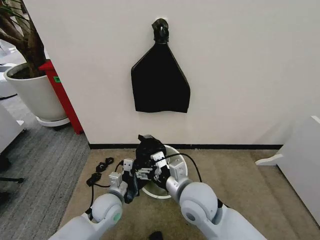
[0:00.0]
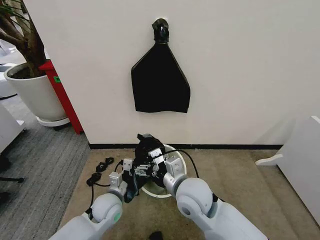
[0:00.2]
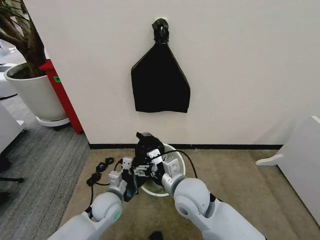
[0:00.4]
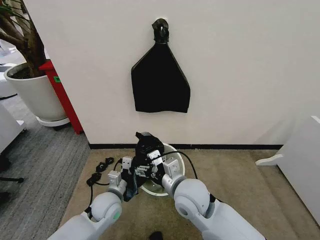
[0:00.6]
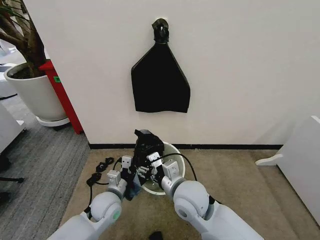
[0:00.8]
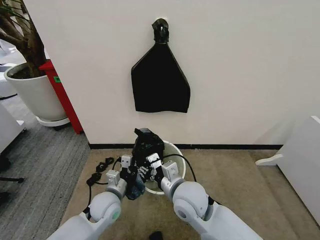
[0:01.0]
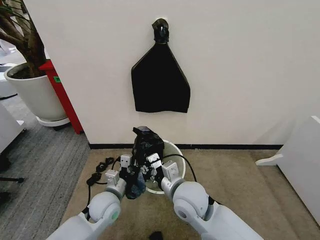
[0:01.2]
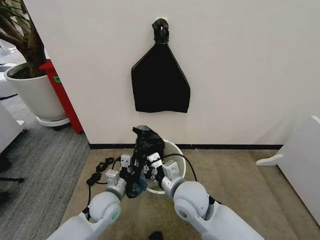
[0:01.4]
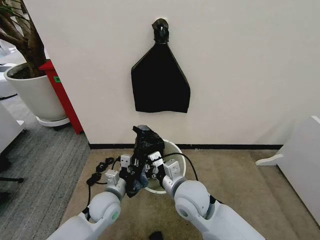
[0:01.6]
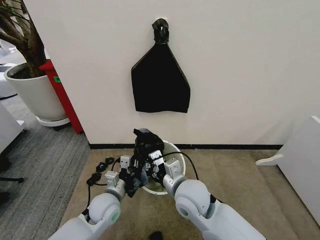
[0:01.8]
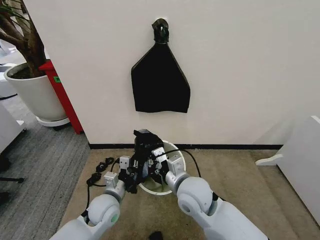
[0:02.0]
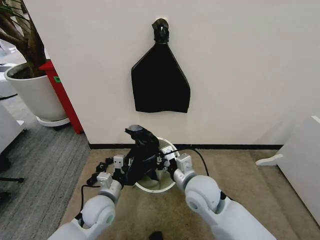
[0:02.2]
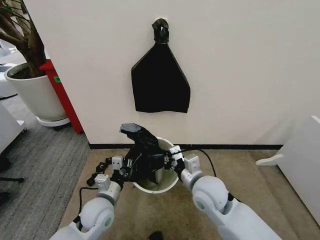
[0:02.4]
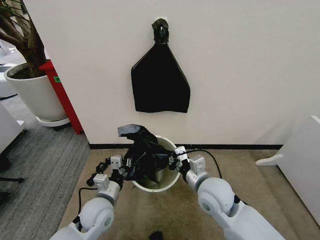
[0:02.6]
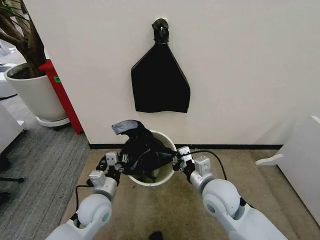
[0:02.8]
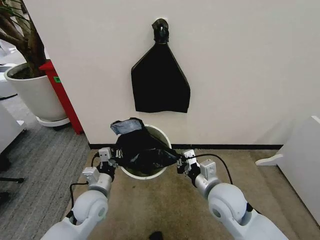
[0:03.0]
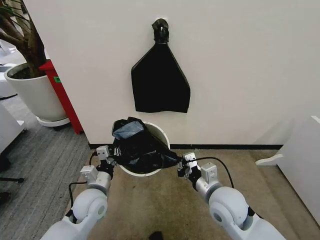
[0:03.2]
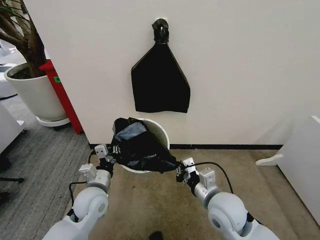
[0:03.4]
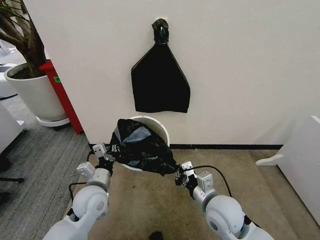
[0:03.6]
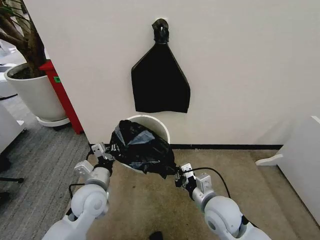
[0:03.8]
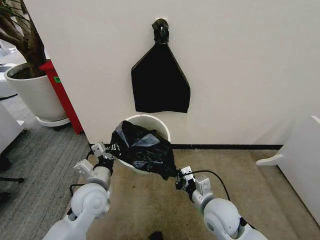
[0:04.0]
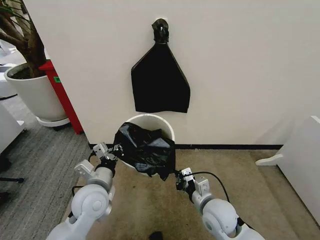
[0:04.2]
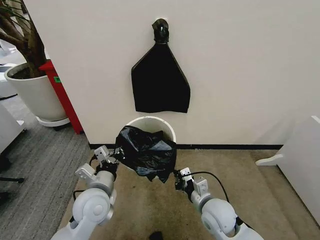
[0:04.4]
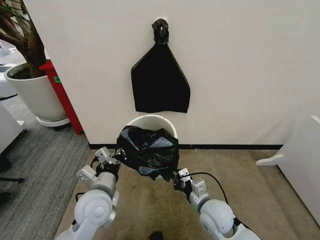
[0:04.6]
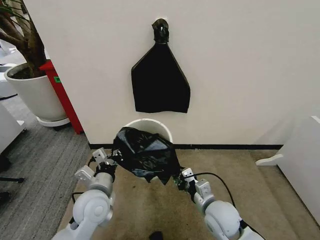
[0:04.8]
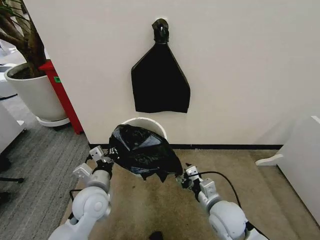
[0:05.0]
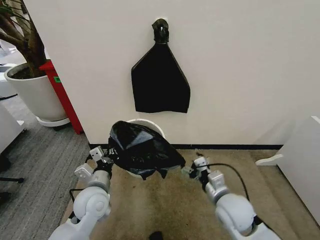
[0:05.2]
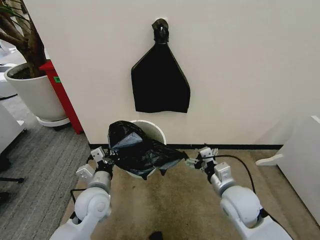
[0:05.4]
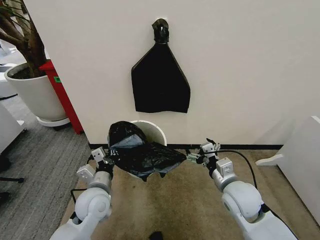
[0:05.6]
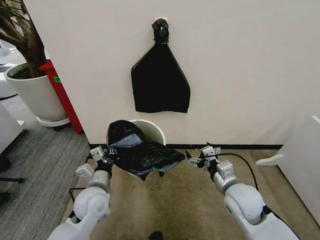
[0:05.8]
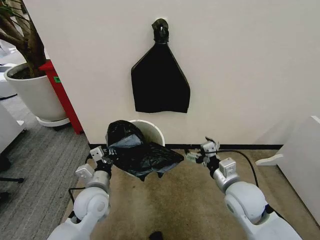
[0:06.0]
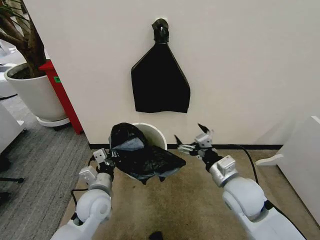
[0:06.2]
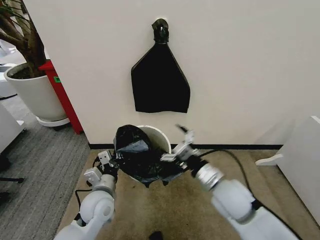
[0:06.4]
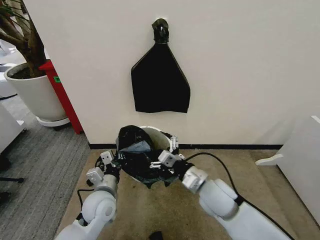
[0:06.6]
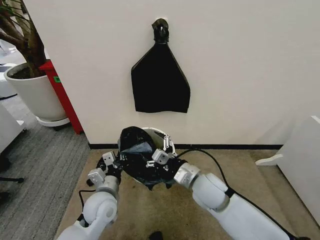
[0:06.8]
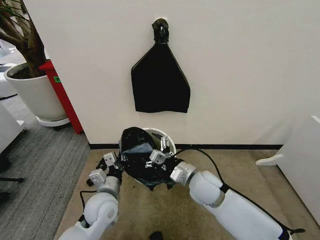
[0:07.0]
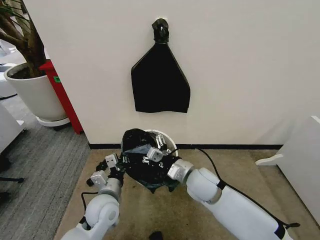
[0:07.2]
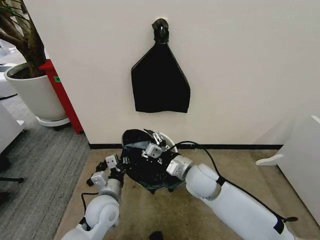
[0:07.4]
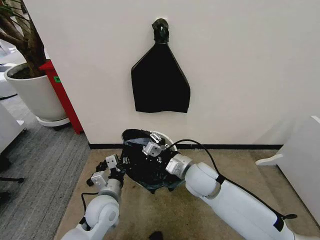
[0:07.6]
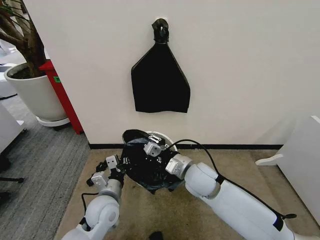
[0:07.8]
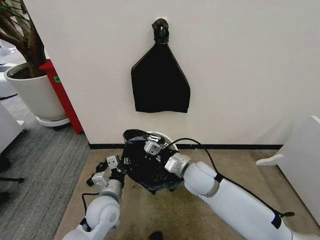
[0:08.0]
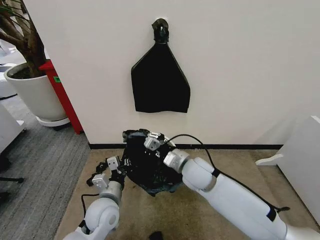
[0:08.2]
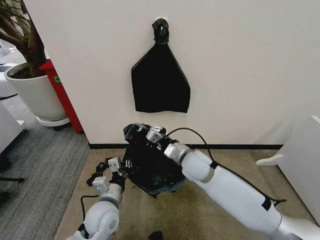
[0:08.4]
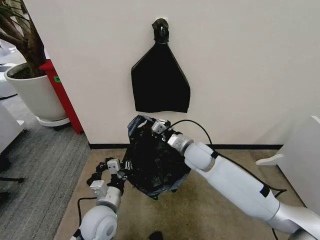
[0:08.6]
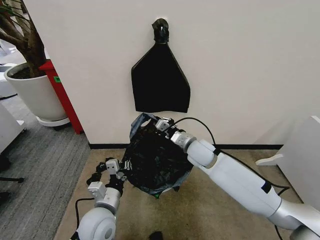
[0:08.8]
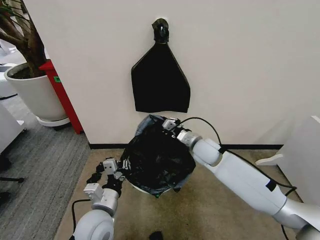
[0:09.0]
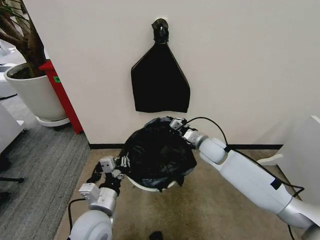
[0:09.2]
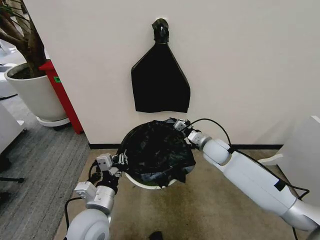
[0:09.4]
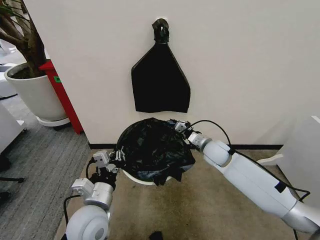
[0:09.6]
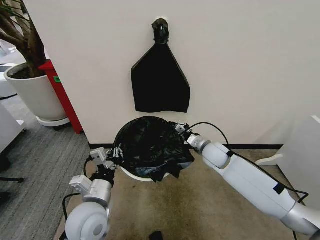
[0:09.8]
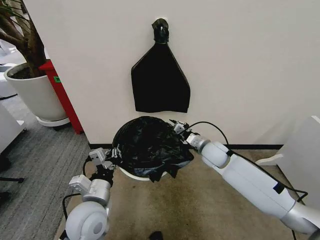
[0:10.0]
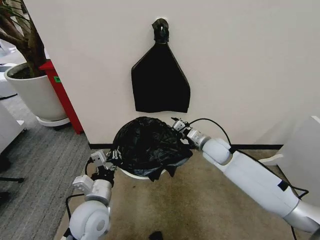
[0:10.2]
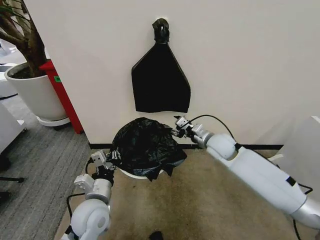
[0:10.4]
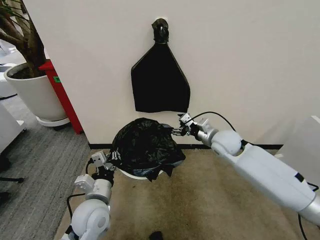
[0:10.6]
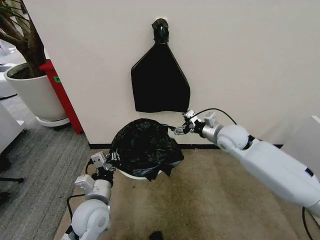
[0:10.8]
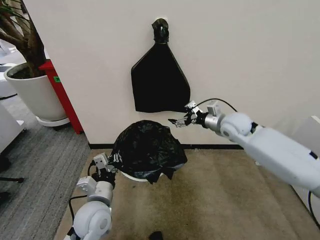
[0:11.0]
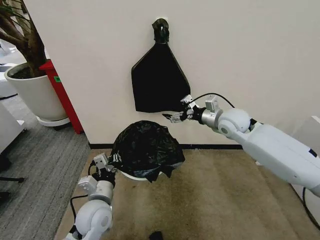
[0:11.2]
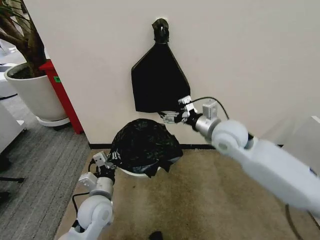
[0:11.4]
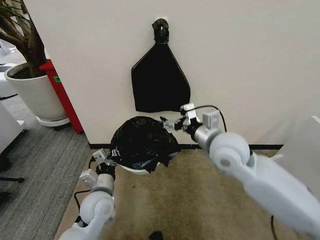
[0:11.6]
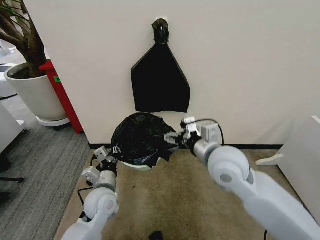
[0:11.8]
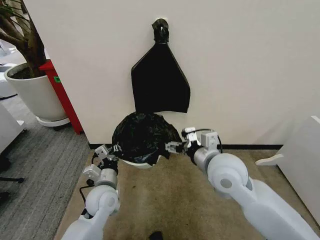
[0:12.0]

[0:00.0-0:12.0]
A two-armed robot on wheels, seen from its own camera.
Task of the whole recording: Place the garbage bag over the trash bin.
0:00.0 to 0:01.6: The right gripper closes its fingers.
0:01.6 to 0:03.0: The right gripper goes roughly 10 cm to the right.
0:03.0 to 0:04.4: The right gripper is displaced downward by roughly 10 cm, while the left gripper travels upward by approximately 5 cm.
0:04.4 to 0:06.0: The right gripper shifts some 10 cm upward and to the right, and opens up.
0:06.0 to 0:07.6: The right gripper shifts approximately 15 cm to the left and forward, and closes up.
0:07.6 to 0:09.0: The left gripper moves backward, about 5 cm. The right gripper goes approximately 10 cm forward, and closes.
0:09.0 to 0:10.4: The right gripper opens its fingers.
0:10.4 to 0:12.0: The right gripper travels backward and upward by approximately 15 cm, and opens up. The left gripper travels forward by some 5 cm.

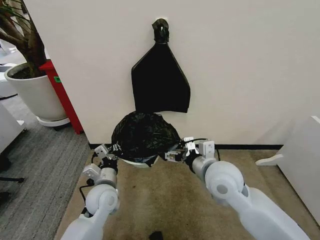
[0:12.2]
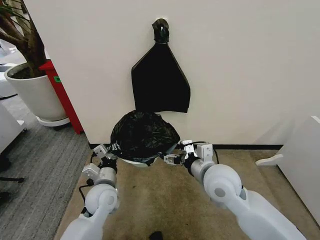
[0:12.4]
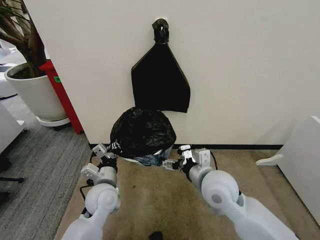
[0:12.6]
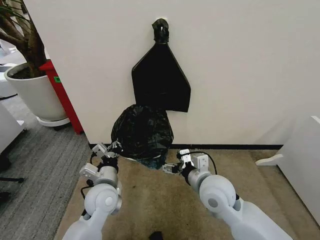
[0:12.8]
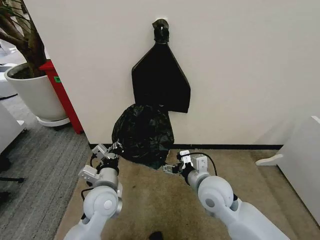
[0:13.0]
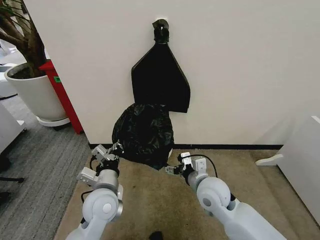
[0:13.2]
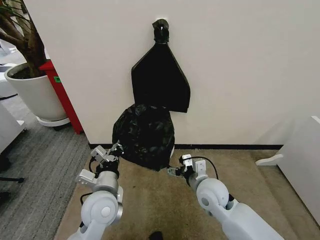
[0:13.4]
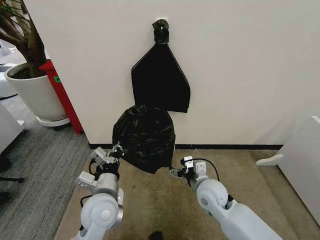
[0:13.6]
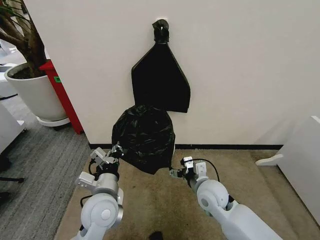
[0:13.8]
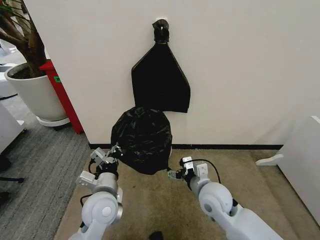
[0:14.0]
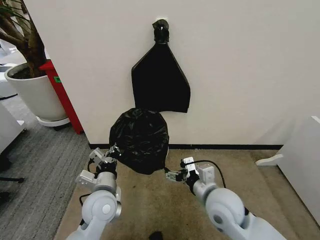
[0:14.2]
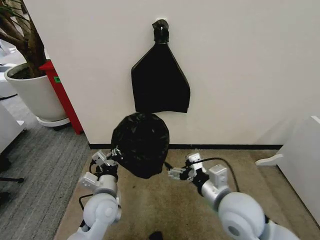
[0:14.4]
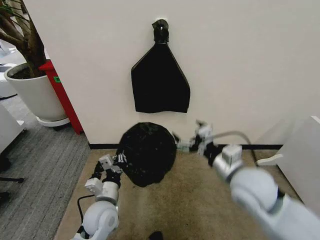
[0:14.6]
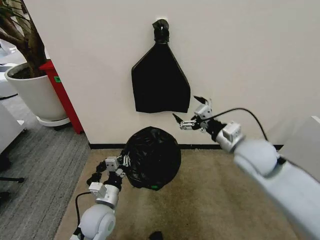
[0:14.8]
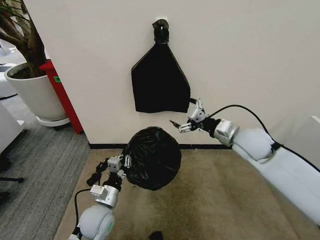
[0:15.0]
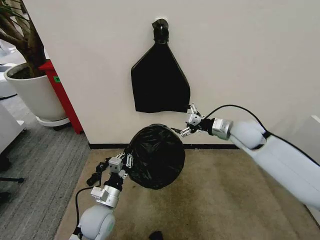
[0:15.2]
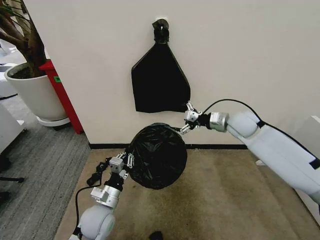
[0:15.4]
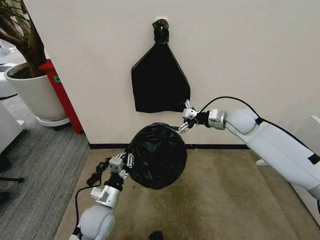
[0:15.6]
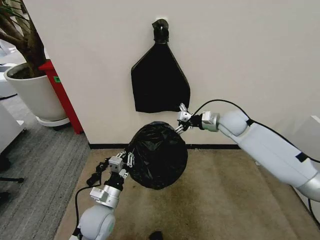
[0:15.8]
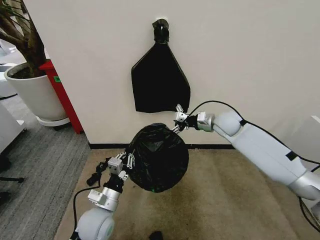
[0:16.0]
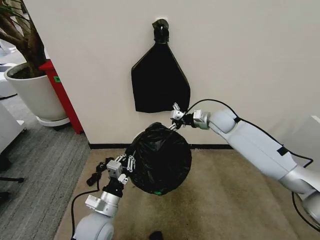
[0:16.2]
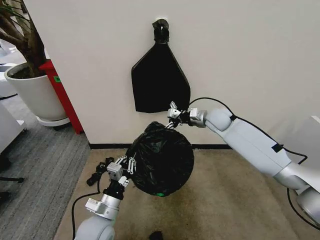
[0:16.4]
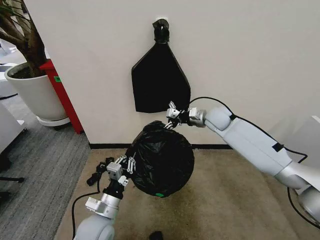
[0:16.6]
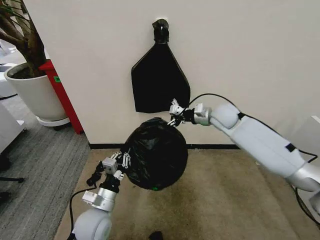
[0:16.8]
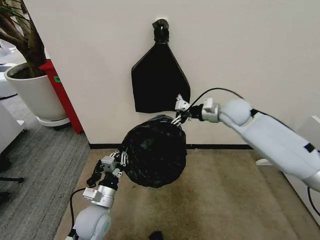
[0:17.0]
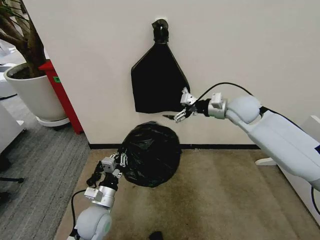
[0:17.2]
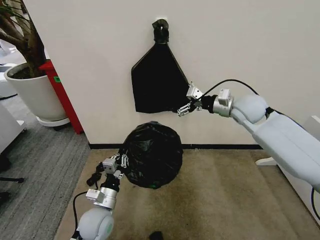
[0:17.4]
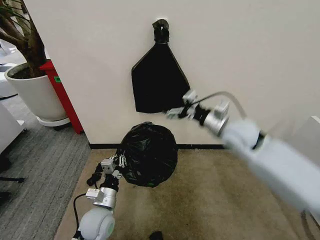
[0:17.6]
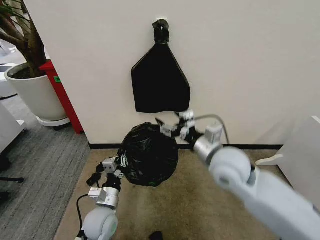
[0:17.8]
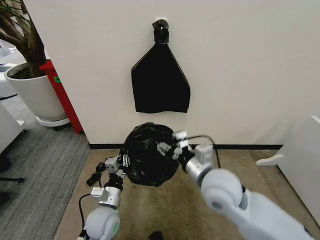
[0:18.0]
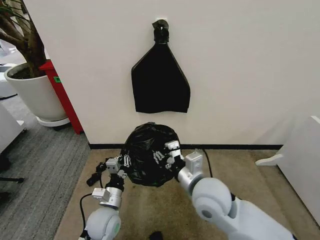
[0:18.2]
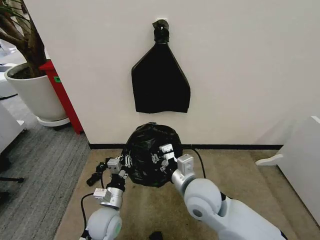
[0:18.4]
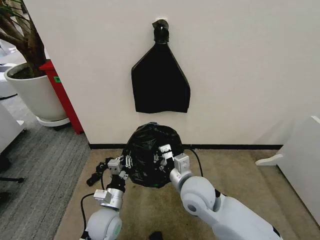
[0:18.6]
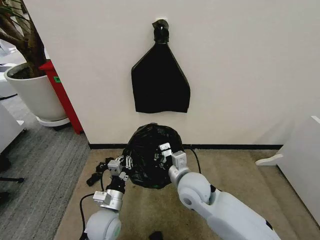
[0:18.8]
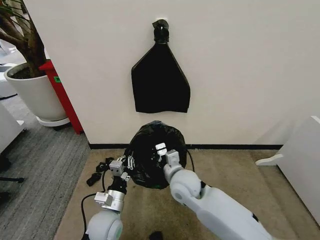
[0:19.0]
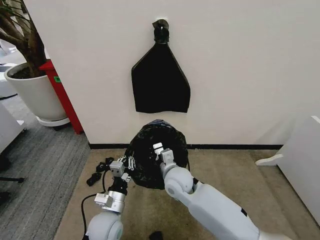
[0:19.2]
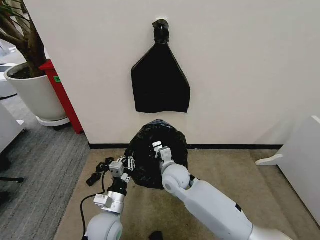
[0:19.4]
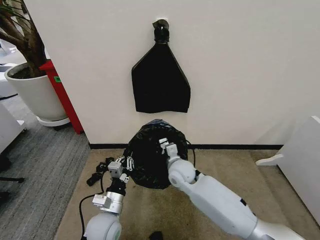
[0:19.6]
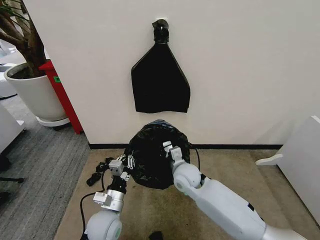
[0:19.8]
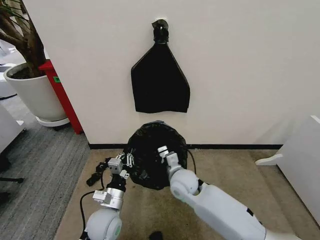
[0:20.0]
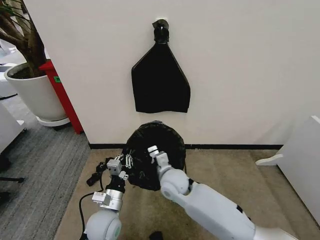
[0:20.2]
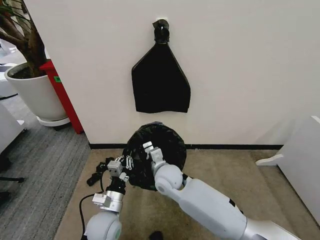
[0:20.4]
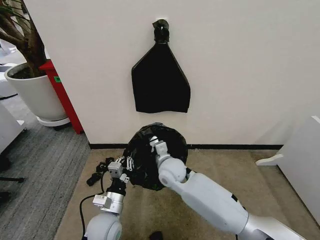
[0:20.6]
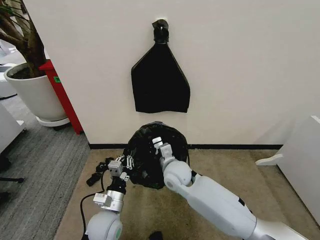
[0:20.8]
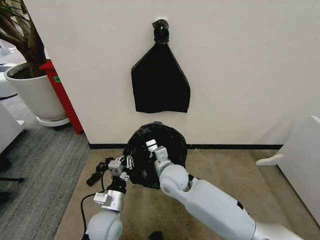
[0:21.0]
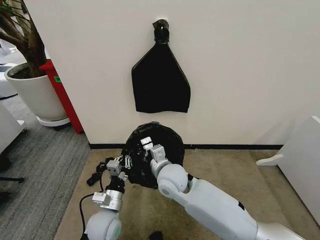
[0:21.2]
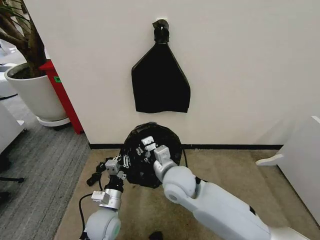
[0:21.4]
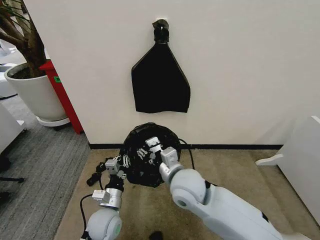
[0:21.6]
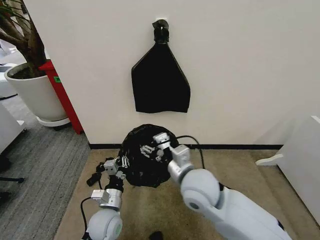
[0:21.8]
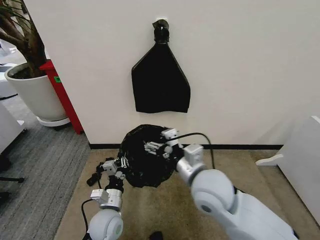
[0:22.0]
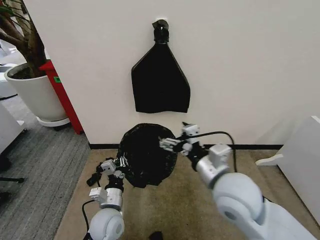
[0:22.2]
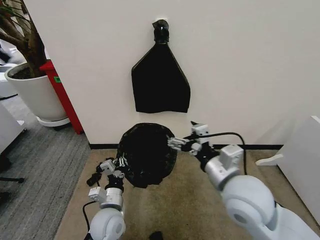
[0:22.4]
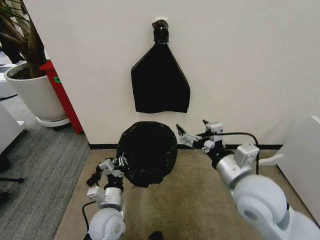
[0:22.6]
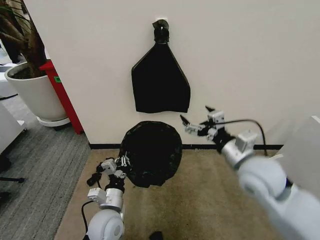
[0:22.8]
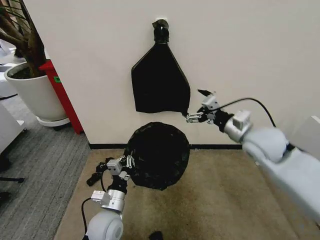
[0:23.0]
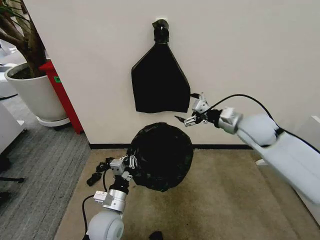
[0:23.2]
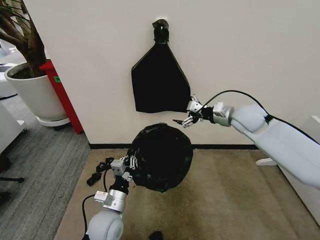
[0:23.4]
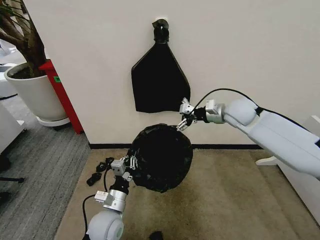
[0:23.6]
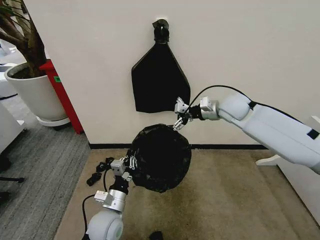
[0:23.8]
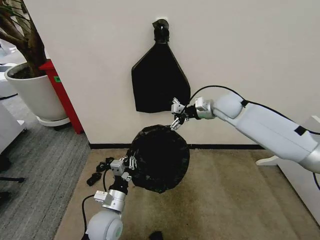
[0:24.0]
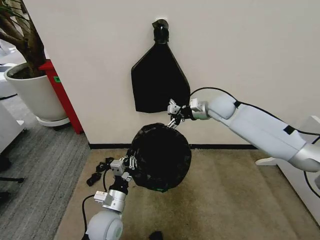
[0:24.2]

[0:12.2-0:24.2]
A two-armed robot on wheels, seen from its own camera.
Task of the whole recording: Place the garbage bag over the trash bin.
0:12.2 to 0:13.8: The right gripper heads downward, covering about 15 cm. Meanwhile the left gripper moves upward and backward, about 10 cm.
0:13.8 to 0:15.2: The right gripper heads forward, upward and to the right, covering some 25 cm; the left gripper heads downward, covering some 10 cm.
0:15.2 to 0:16.6: The right gripper is displaced forward and to the left by some 10 cm.
0:16.6 to 0:18.2: The right gripper heads backward, covering some 30 cm, and closes its fingers.
0:18.2 to 0:19.8: The right gripper is displaced forward and downward by approximately 15 cm, and closes its fingers.
0:19.8 to 0:21.2: The right gripper shifts approximately 10 cm to the left and upward.
0:21.2 to 0:22.6: The right gripper is displaced to the right, upward and backward by some 25 cm, and opens up.
0:22.6 to 0:24.2: The right gripper heads forward, covering about 35 cm.
